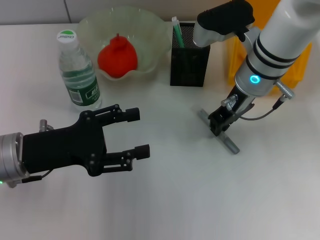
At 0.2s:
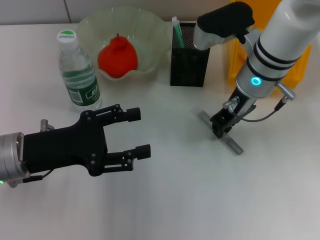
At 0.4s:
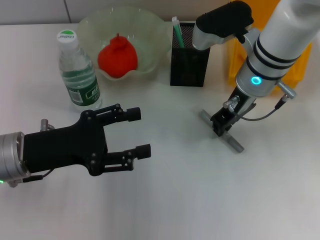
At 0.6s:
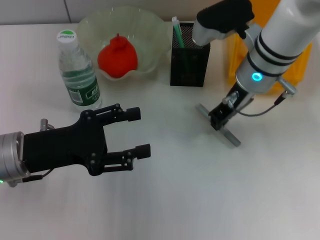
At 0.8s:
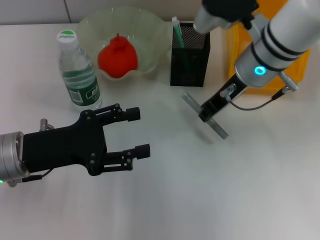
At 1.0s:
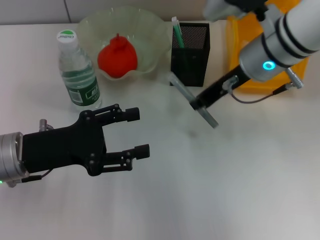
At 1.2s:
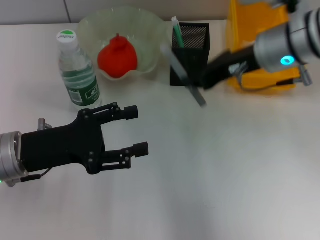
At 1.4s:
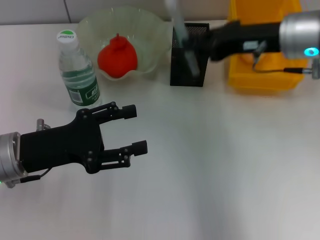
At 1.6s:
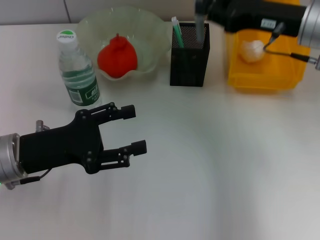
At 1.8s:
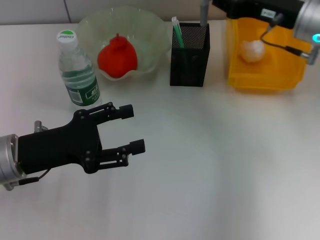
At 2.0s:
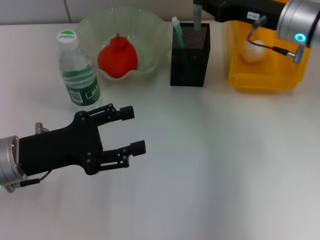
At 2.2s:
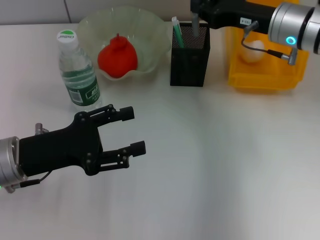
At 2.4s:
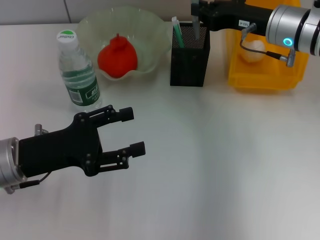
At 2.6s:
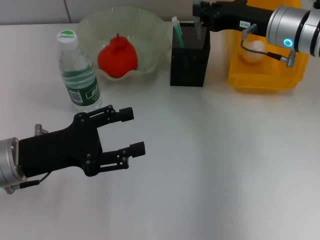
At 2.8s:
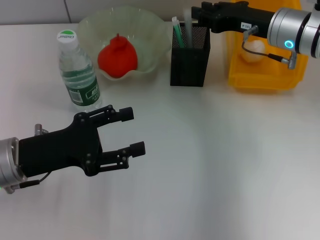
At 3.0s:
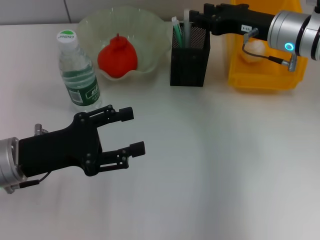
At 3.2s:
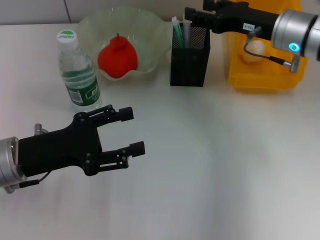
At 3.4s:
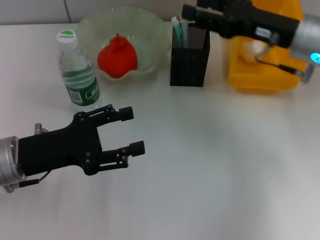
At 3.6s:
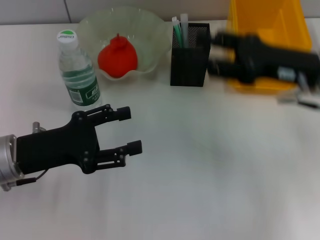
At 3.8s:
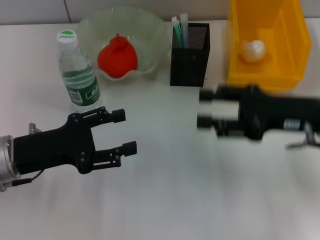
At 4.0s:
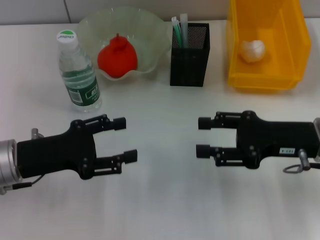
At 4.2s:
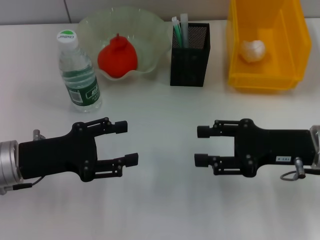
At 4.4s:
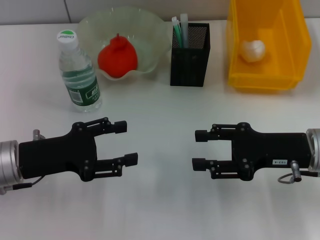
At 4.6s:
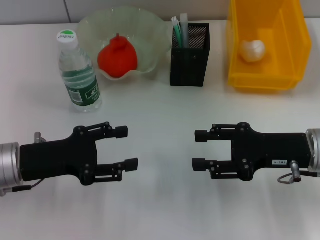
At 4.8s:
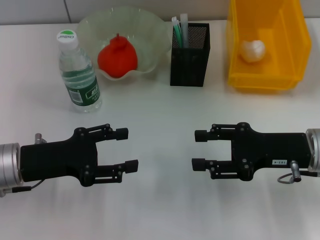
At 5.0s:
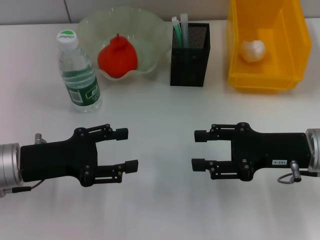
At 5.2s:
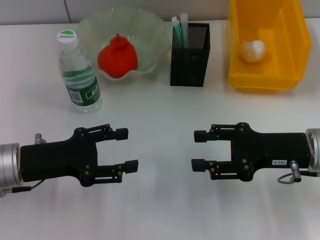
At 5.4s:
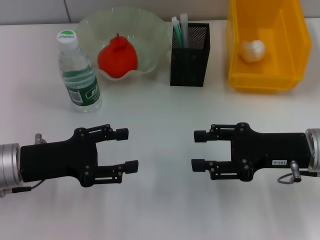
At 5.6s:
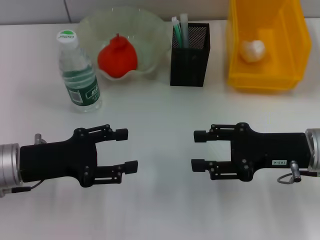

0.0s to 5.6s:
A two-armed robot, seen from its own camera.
Step, 0.4s to 3.0s: Place the gray glue into the pen holder with the right hand.
0.0s to 1.4s: The right gripper goes approximately 10 cm to the right and upward.
1.4s to 2.8s: The right gripper goes approximately 5 cm downward and forward.
2.8s to 4.2s: The right gripper is displaced backward by some 15 cm, and opens.
4.2s to 5.6s: The two grippers keep their place.
